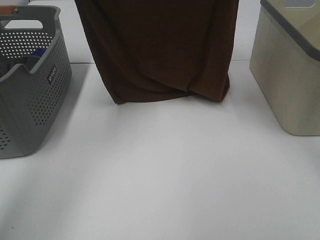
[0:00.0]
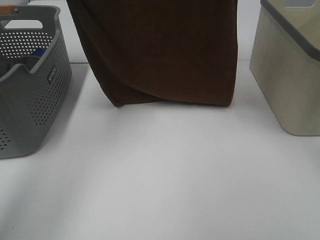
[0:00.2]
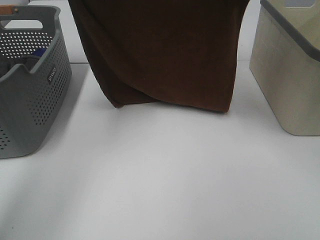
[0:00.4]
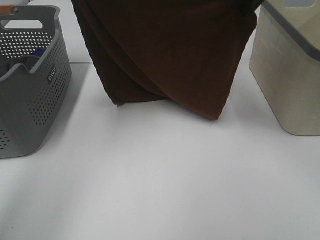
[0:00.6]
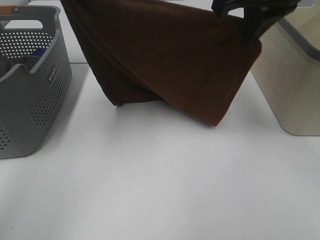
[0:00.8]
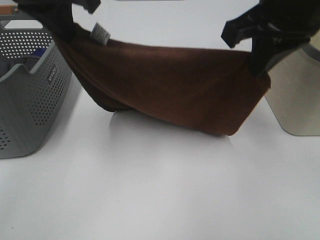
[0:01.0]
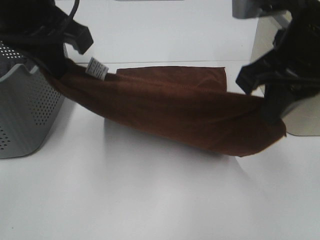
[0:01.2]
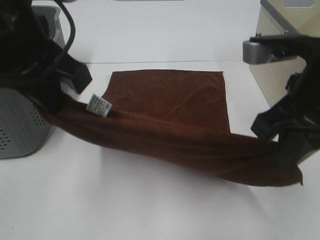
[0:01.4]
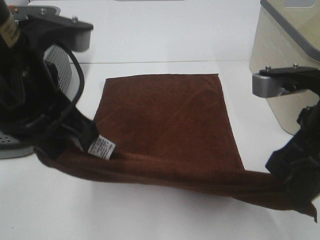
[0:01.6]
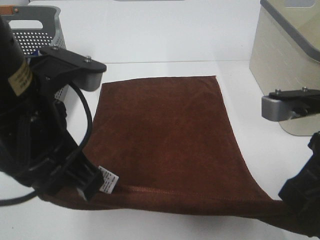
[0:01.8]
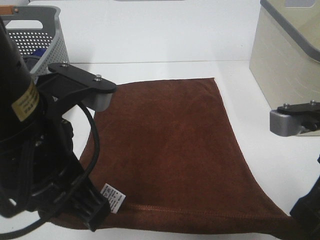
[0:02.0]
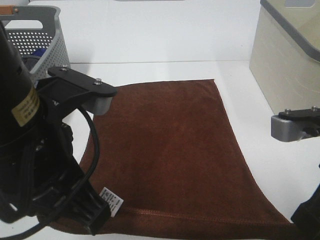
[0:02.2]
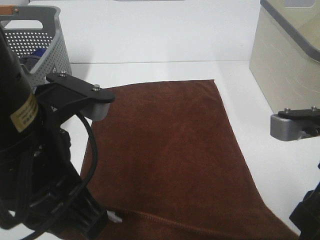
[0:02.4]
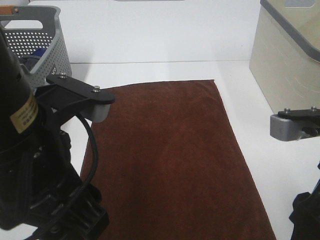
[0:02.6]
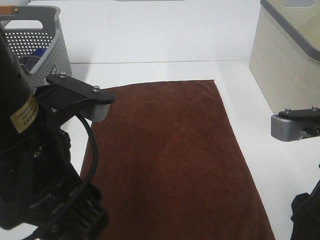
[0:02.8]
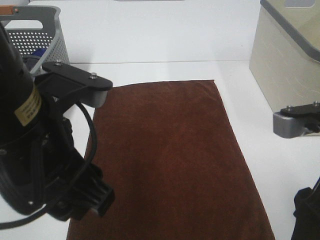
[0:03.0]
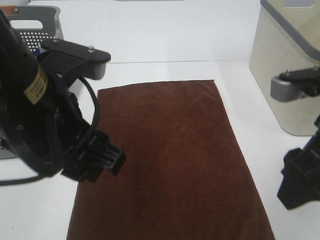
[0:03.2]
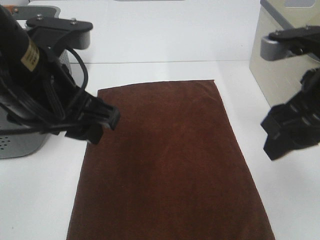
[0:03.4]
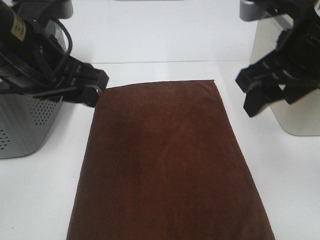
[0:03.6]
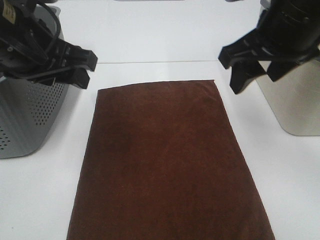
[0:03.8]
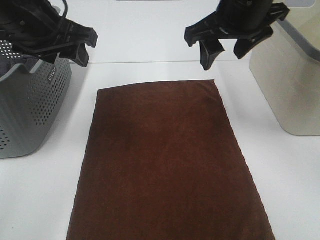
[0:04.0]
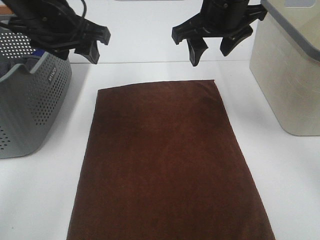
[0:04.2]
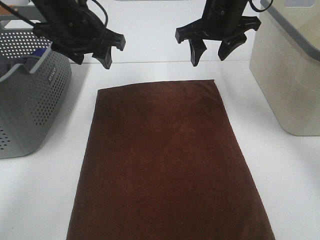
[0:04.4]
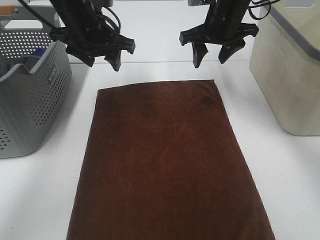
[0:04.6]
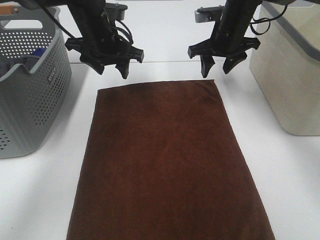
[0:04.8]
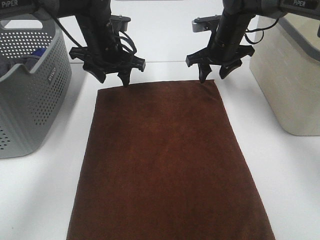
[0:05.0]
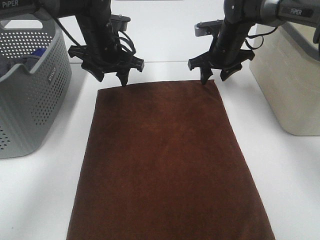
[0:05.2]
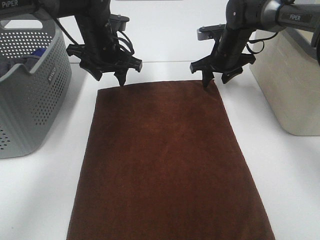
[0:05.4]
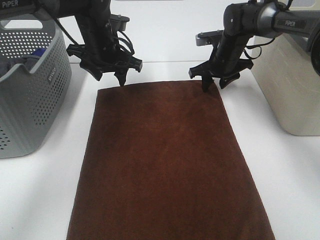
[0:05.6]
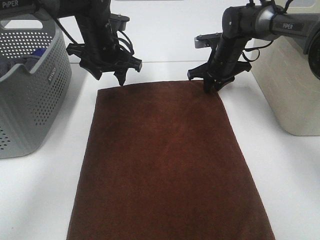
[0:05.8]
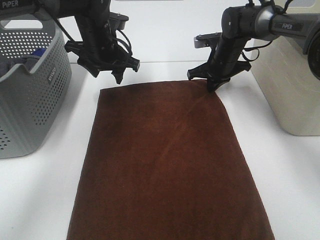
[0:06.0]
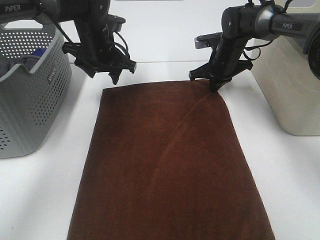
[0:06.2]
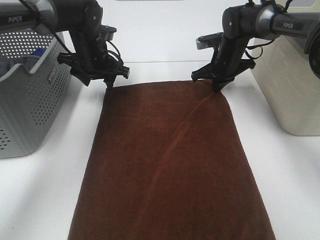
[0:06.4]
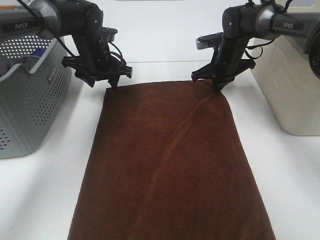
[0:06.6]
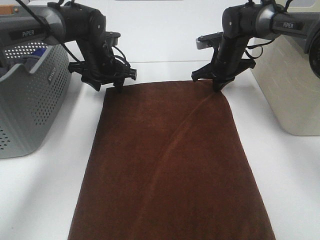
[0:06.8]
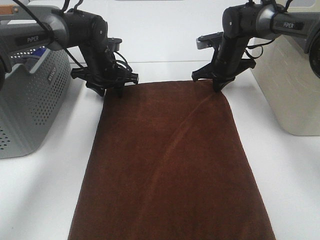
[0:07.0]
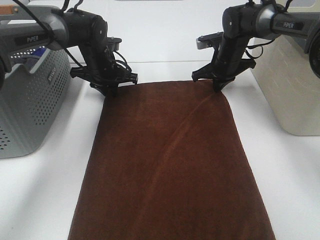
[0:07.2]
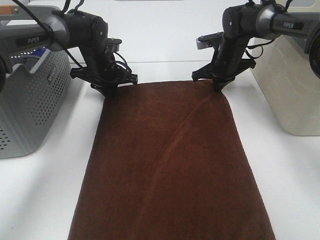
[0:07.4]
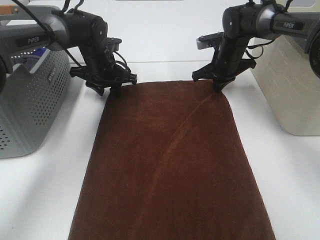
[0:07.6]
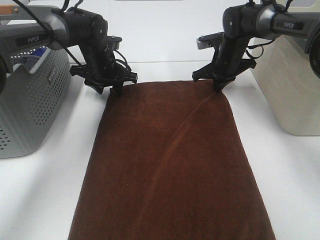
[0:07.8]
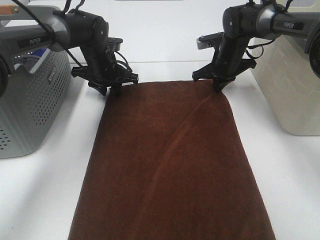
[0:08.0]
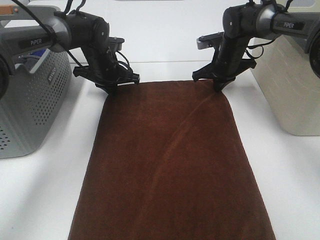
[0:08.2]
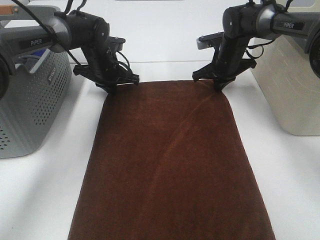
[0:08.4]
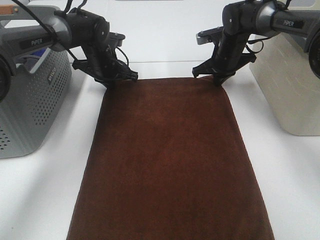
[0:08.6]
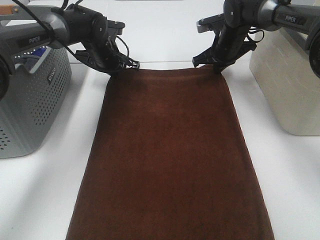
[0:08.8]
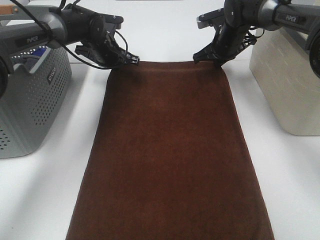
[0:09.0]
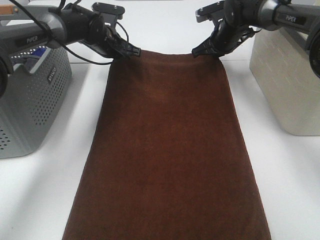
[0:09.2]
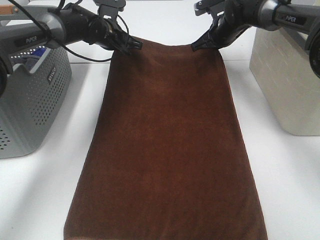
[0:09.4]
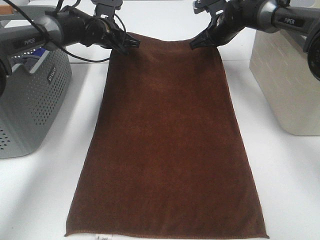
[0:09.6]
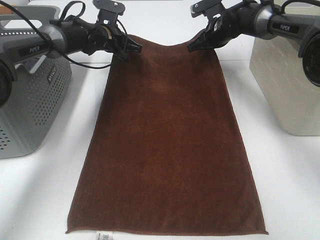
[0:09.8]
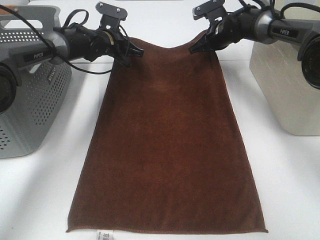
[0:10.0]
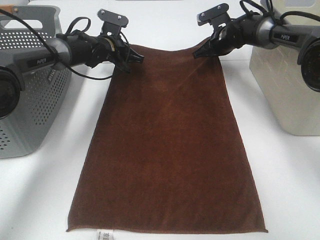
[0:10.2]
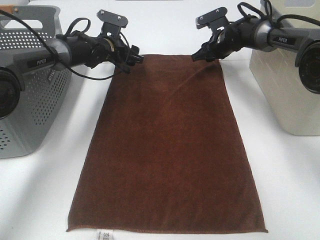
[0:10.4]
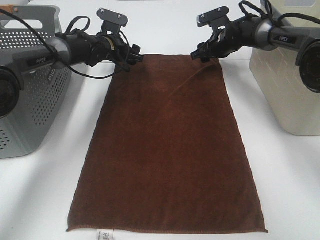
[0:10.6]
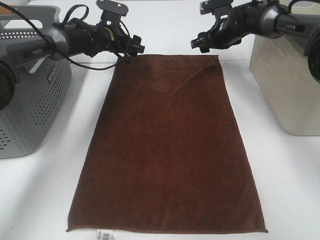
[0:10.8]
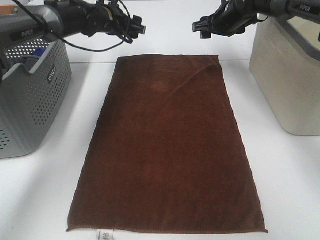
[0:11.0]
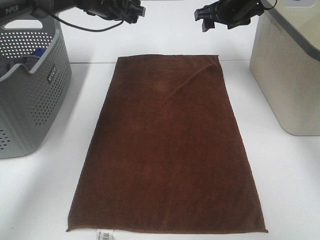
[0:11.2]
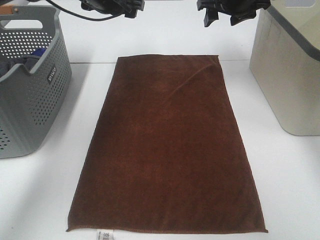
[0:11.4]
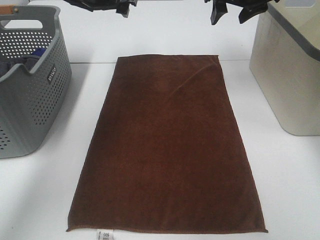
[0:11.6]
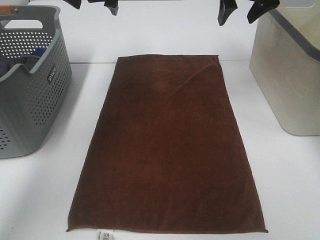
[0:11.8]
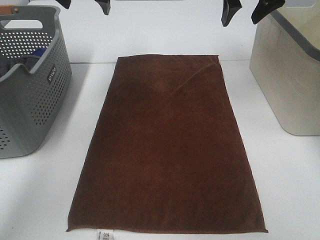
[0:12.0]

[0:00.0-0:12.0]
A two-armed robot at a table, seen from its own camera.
Task of the whole recording: Remove the towel and place it.
Step, 0:00.0 to 0:04.4: Left hand:adjust the brown towel.
Step, 0:00.0 to 0:04.4: Right hand:adjust the brown towel.
0:00.0 to 0:01.6: The two grippers go approximately 25 cm backward and downward.
0:01.6 to 0:03.0: The left gripper ends up about 5 cm from where it was, and opens. Meanwhile the right gripper opens its fingers.
0:03.0 to 0:04.4: The grippers both shift forward by roughly 25 cm.
0:04.4 to 0:06.0: The right gripper shifts roughly 15 cm downward and forward, and closes up; the left gripper moves downward and forward, about 10 cm.
0:06.0 to 0:07.6: The left gripper goes approximately 5 cm downward.
0:07.6 to 0:09.0: The left gripper closes up.
0:09.0 to 0:10.4: The left gripper opens. The right gripper opens.
0:10.4 to 0:12.0: The two grippers go approximately 25 cm upward and backward.

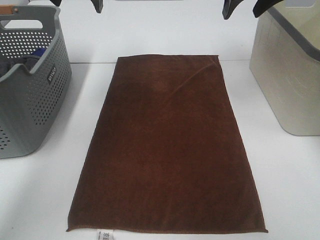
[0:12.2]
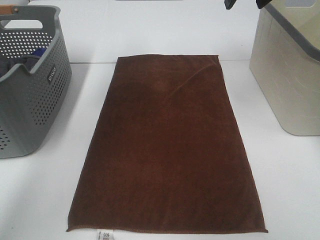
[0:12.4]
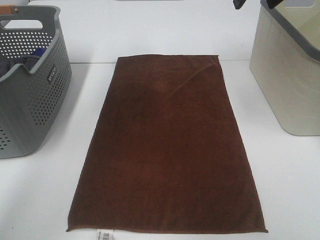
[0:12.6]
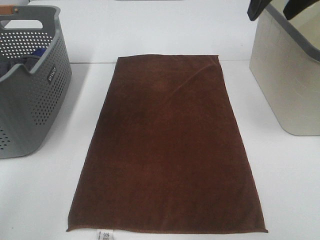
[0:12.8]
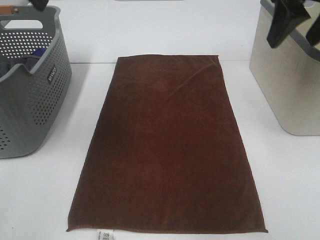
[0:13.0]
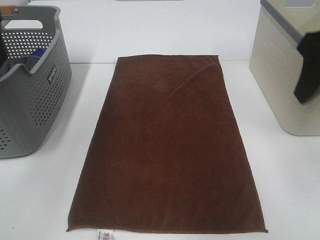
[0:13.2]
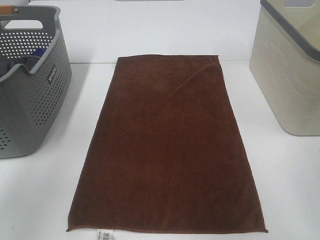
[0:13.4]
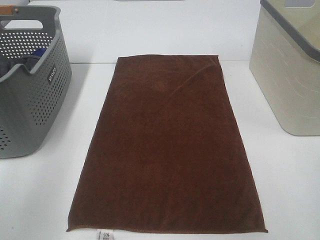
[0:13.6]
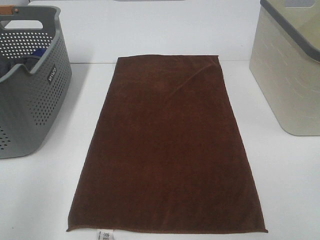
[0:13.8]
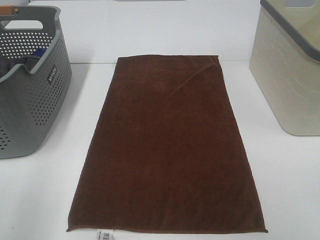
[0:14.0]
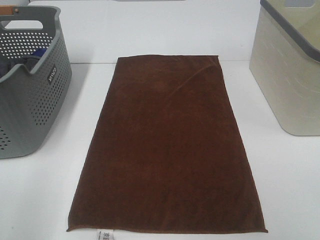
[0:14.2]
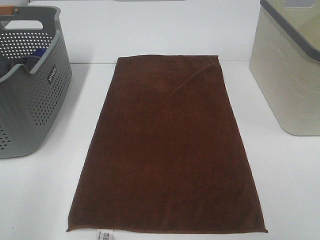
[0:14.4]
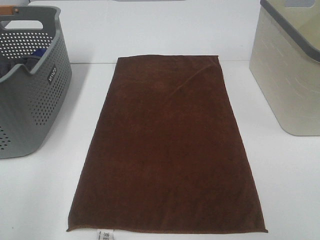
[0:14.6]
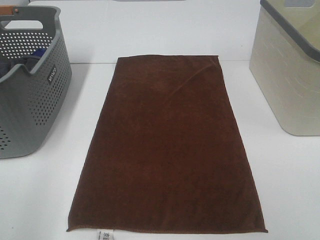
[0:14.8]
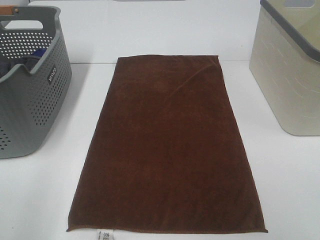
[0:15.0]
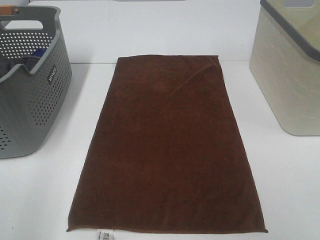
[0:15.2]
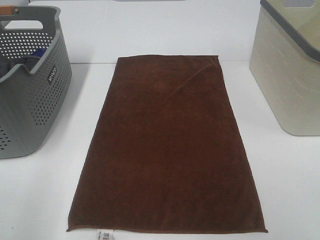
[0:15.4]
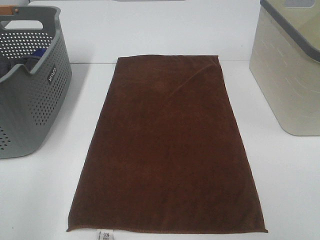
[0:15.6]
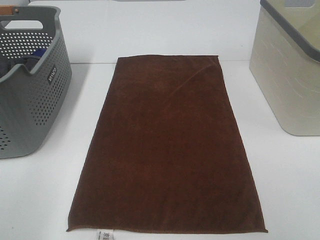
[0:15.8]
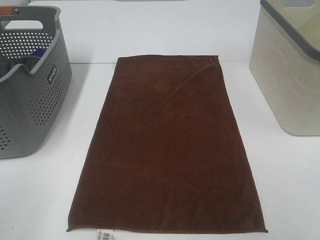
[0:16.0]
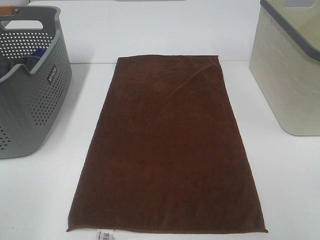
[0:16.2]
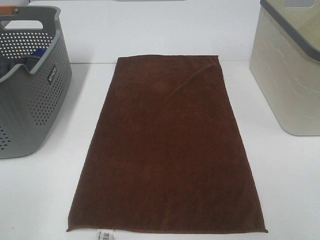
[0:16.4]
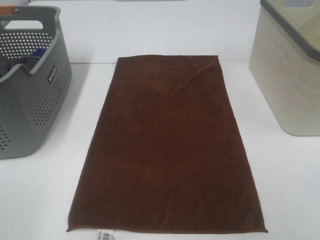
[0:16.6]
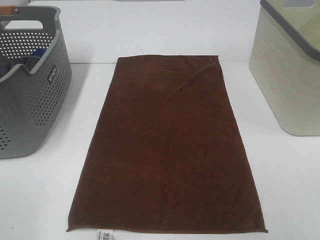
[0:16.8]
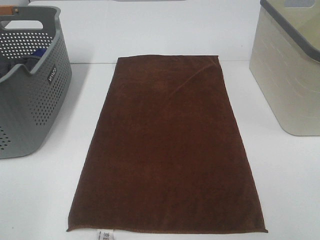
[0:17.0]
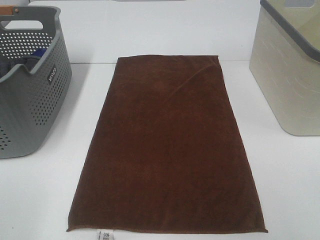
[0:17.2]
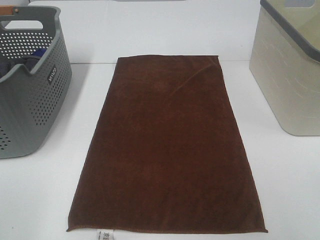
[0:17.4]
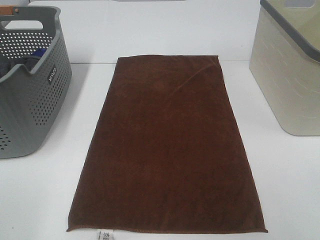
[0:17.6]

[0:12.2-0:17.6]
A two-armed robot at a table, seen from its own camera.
Task of the whole recording: Remove the towel and place it.
0:12.2 to 0:13.6: The two grippers go some 35 cm backward.

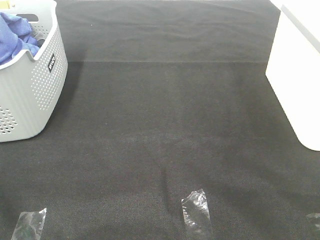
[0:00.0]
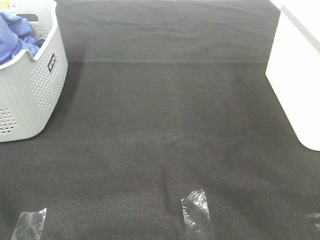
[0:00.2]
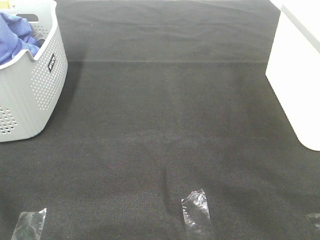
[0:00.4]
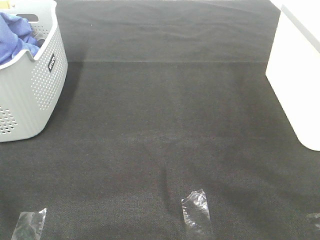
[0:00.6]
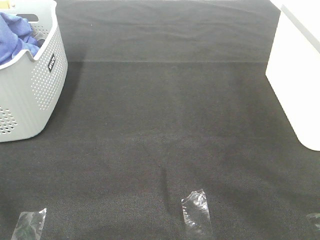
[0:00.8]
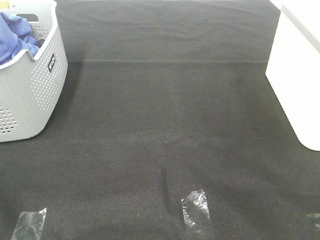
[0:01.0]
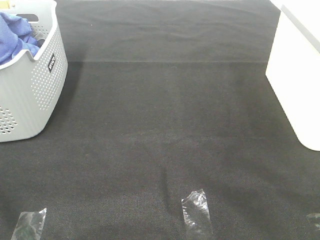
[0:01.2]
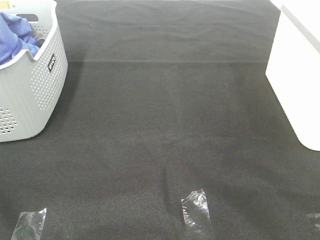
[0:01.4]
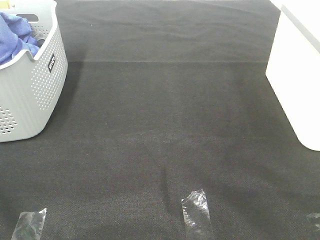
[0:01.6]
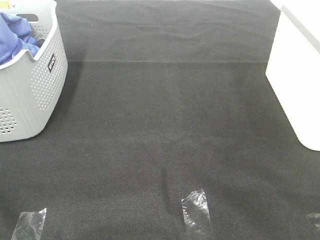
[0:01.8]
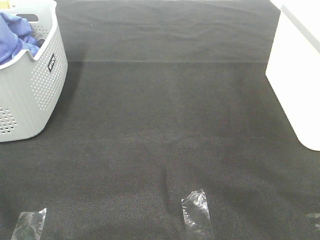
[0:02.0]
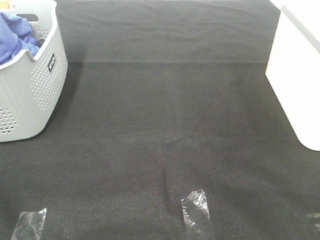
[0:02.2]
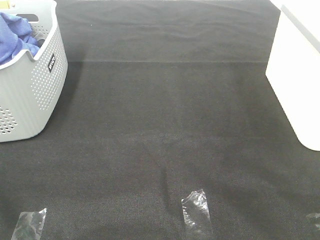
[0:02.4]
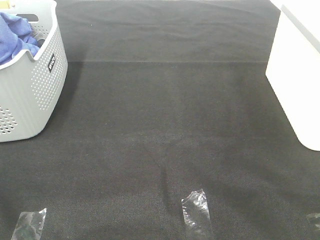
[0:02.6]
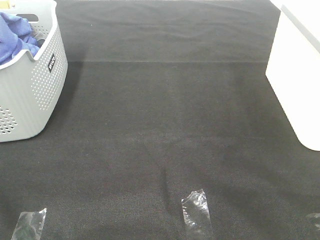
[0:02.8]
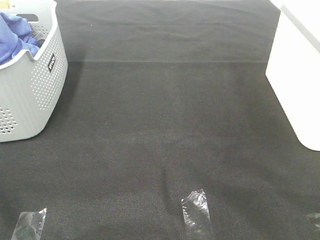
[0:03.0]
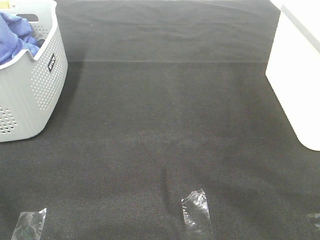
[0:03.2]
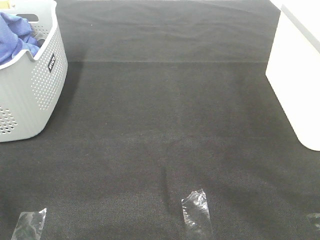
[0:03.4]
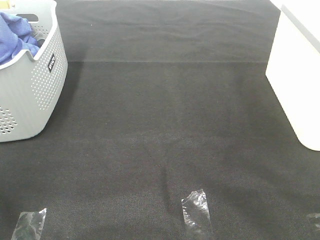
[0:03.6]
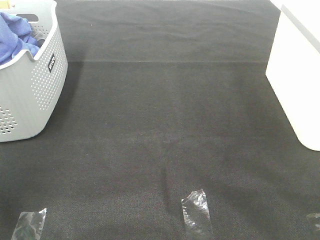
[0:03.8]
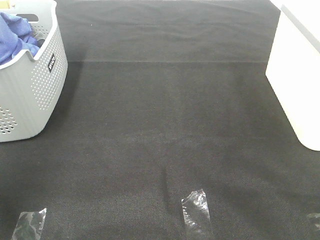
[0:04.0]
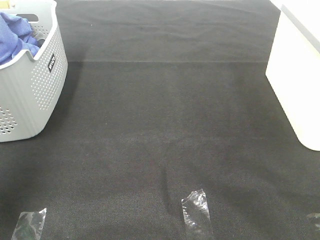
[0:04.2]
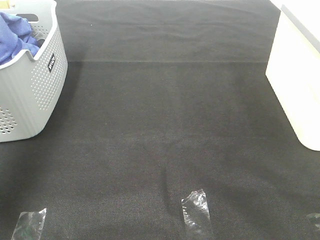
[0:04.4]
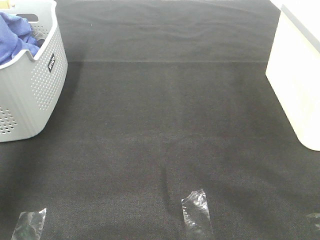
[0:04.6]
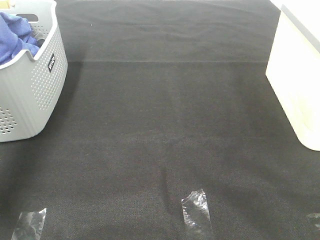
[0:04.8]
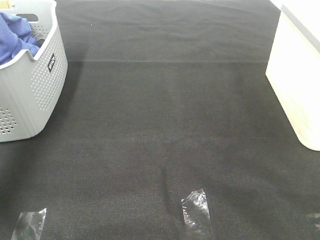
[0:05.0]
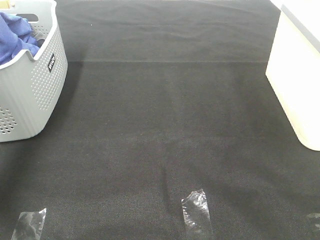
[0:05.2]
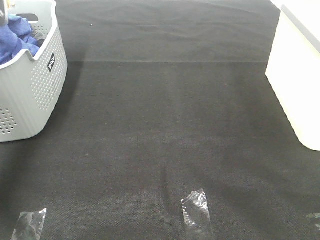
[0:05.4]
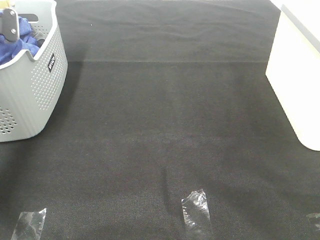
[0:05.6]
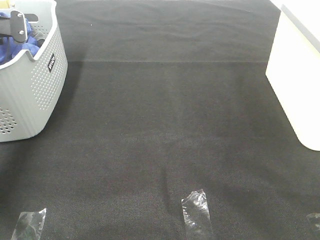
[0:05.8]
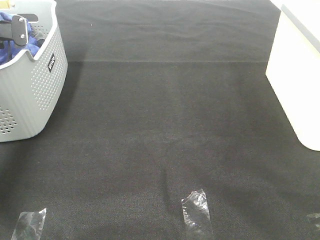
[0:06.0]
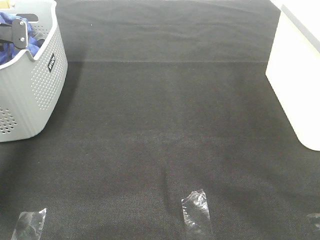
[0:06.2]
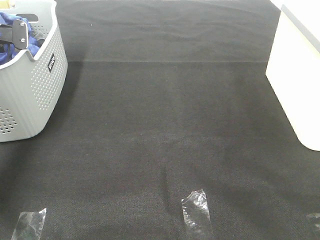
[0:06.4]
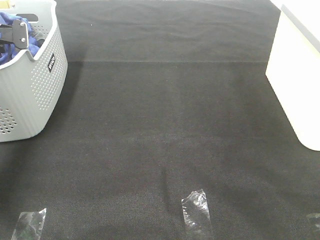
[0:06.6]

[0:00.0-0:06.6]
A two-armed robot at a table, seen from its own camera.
Task of the whole recording: Remove the towel and place it.
0:00.0 to 0:01.6: Both grippers stay about where they are.
0:03.2 to 0:05.0: The left gripper shifts roughly 40 cm forward.
0:05.0 to 0:06.6: The left gripper travels downward and forward by some 15 cm, and closes.
